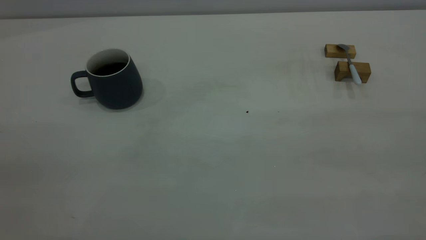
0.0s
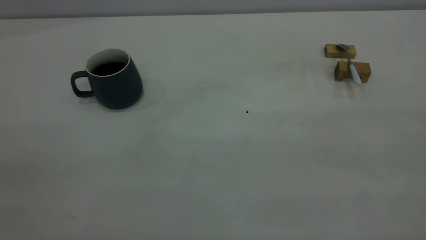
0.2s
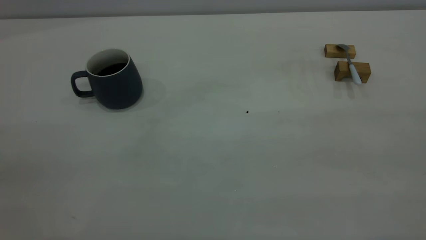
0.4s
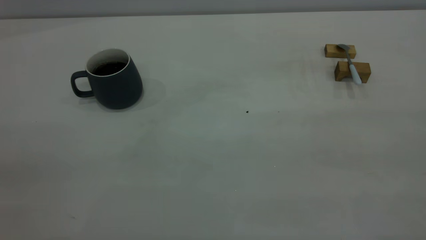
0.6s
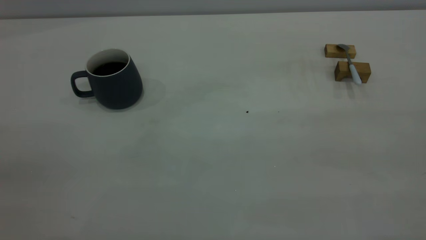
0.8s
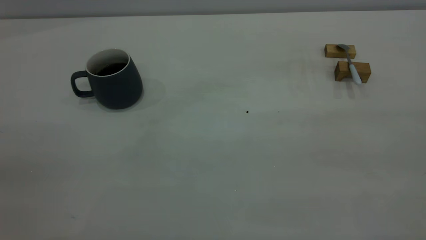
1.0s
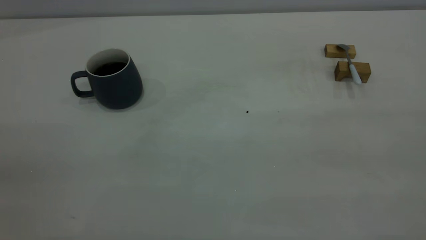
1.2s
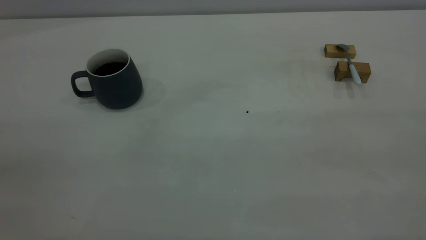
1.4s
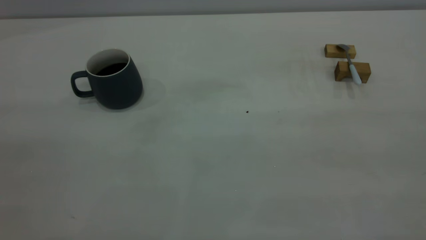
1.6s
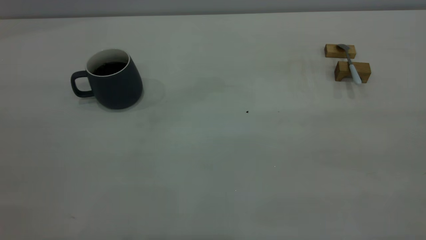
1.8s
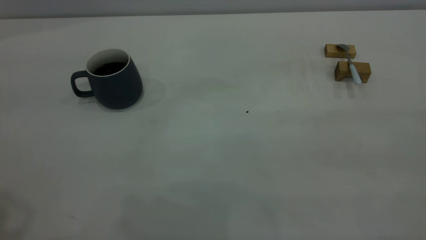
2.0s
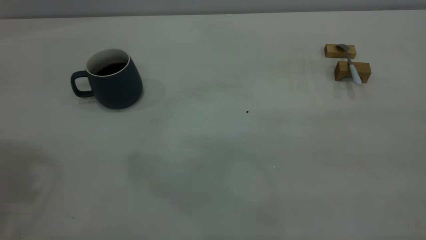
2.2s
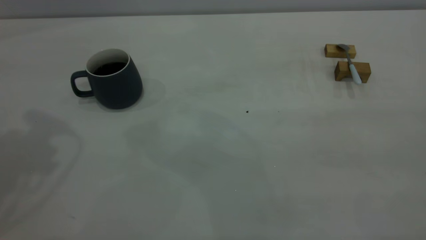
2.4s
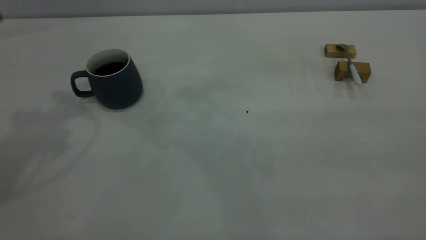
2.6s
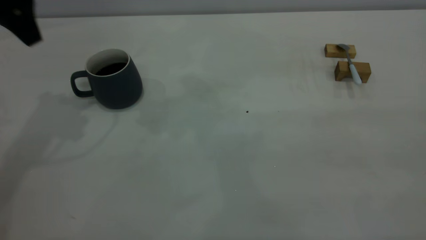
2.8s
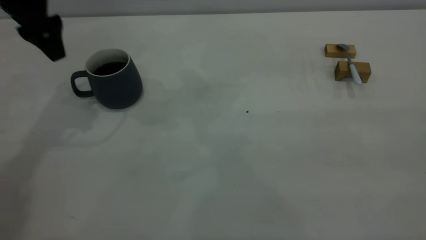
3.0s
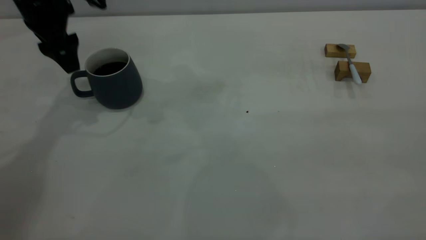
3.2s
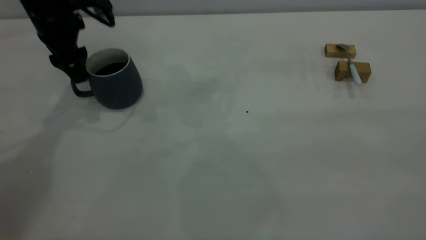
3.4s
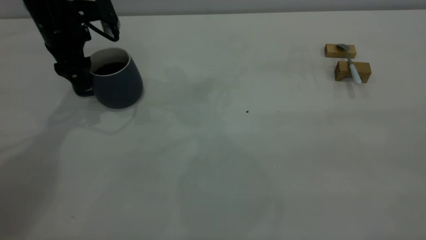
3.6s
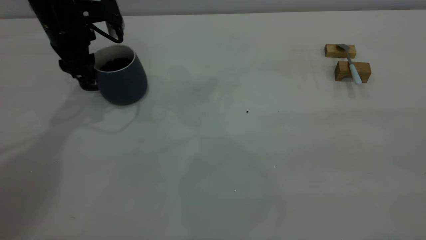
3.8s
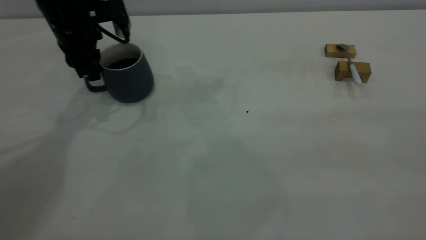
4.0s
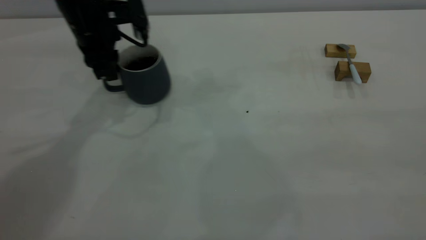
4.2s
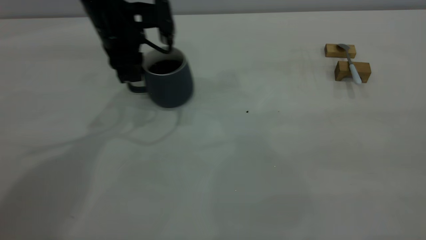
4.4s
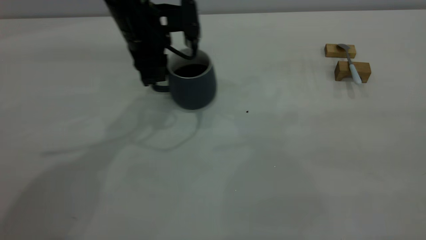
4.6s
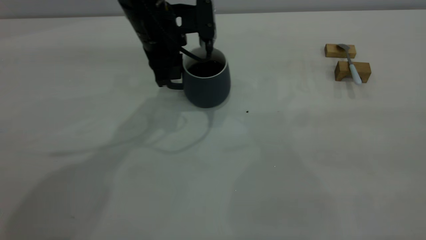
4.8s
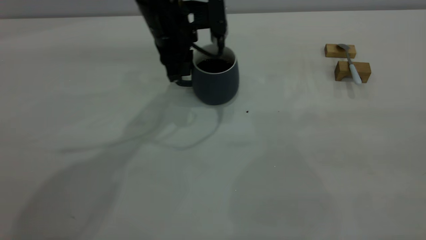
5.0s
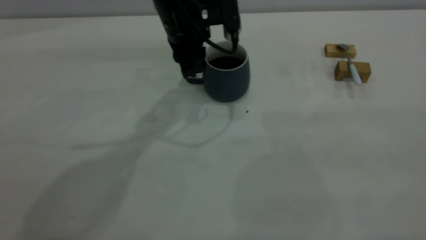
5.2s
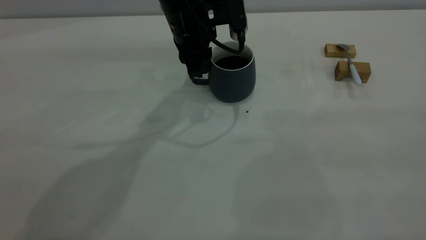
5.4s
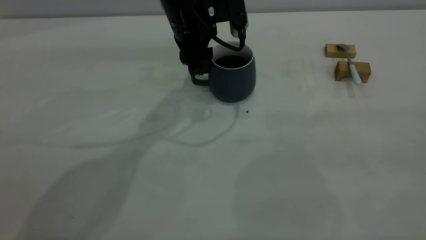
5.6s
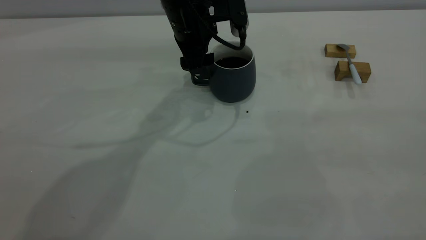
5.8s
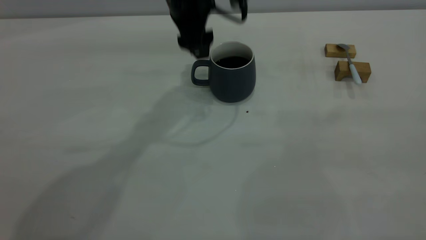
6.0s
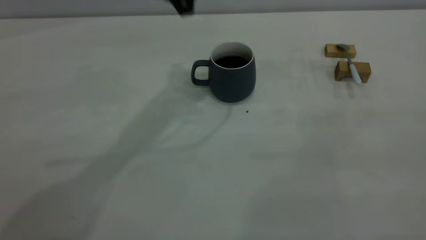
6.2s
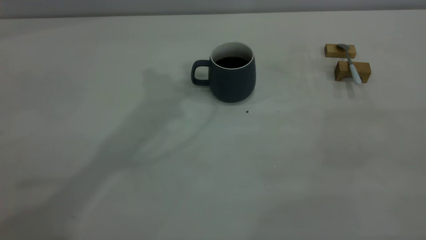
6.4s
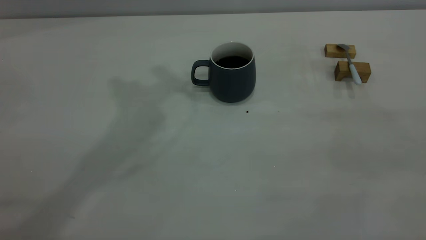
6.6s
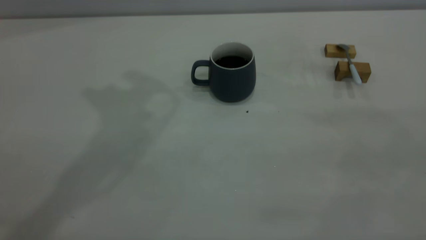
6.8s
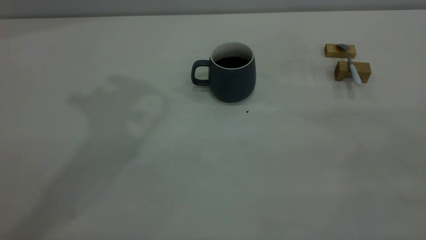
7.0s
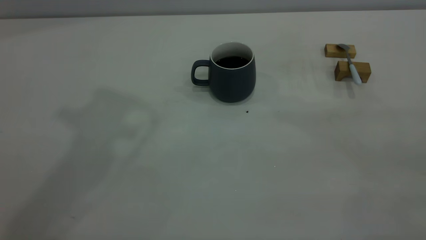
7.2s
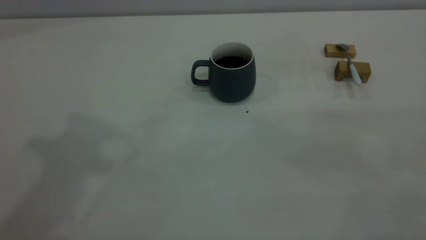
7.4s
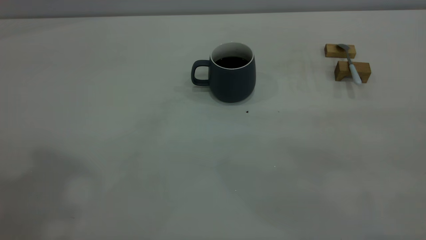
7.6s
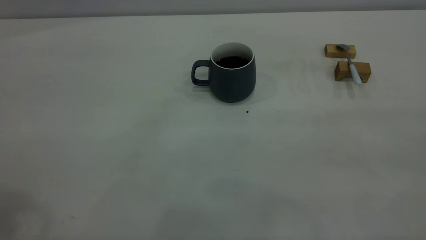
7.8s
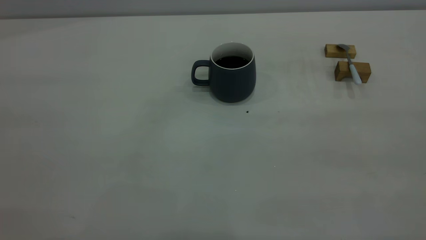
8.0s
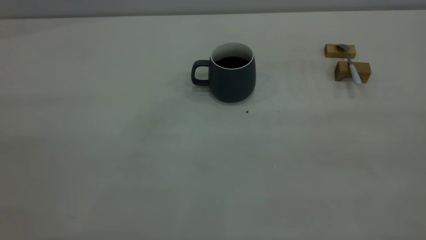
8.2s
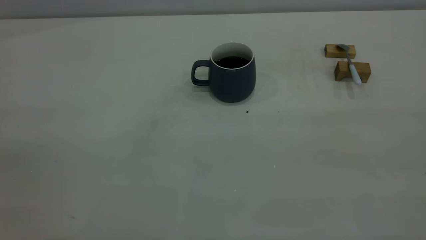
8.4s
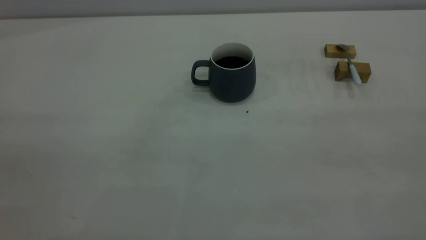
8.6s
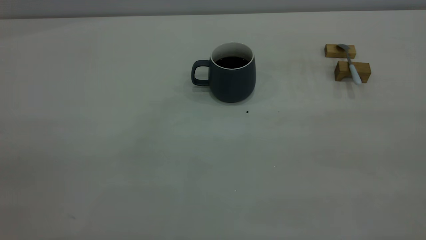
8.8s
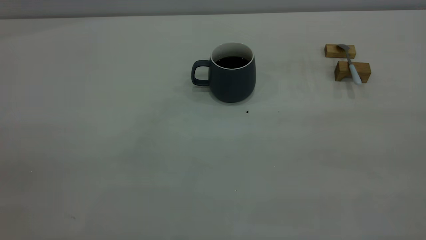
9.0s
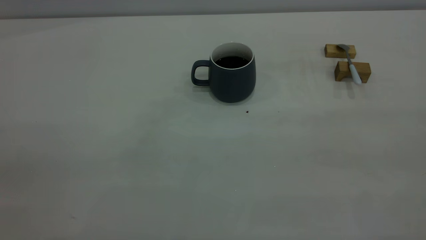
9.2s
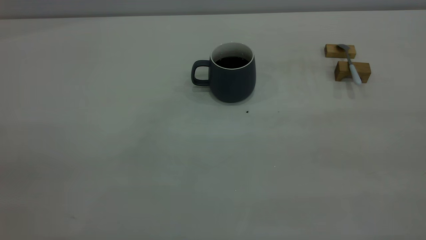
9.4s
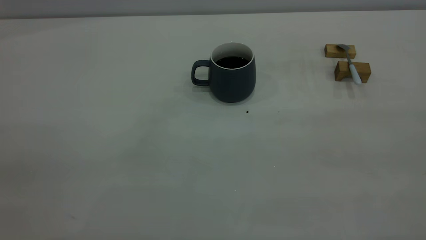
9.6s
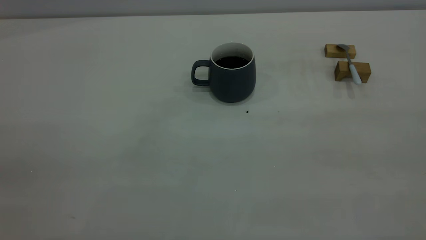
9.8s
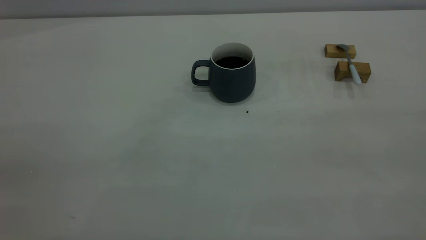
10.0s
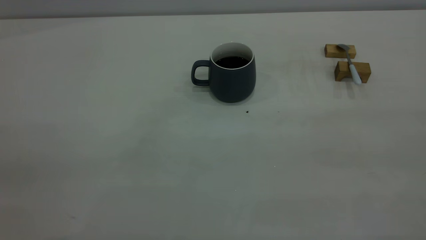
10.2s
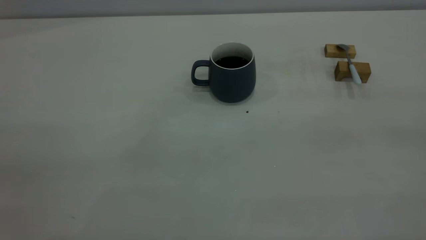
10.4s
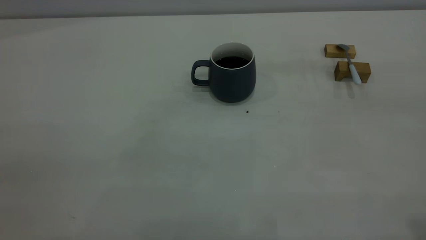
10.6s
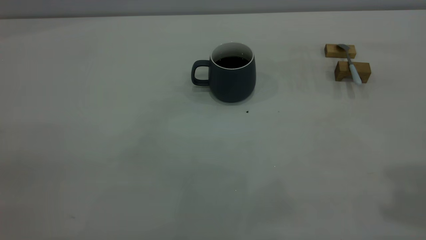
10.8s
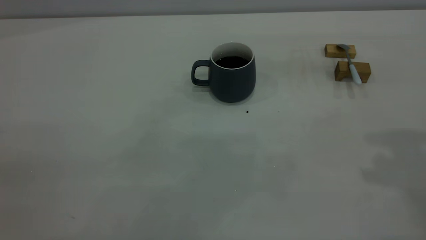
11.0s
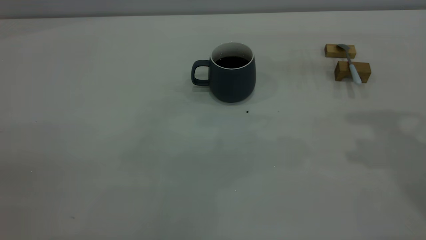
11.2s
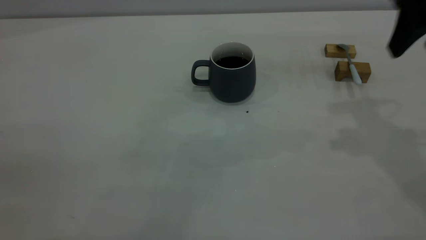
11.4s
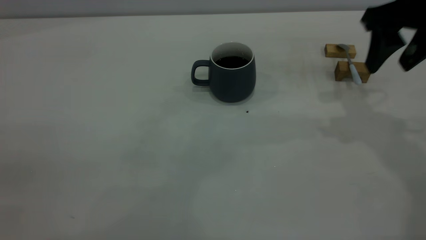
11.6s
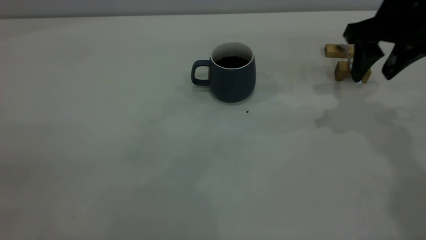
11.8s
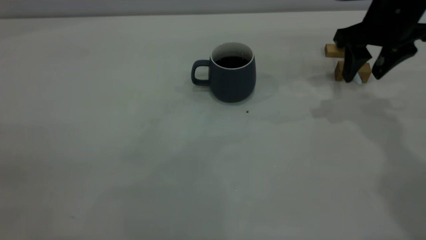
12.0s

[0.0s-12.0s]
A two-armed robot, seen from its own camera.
Step, 0.0s to 6.0s: Move the cup with coffee to the center of view.
1.6s to 3.0s: The left gripper goes approximately 40 cm forward and downward, and opens.
3.0s to 4.4s: The left gripper travels to the right and downward by approximately 15 cm, and closes its fingers.
4.4s to 6.0s: The left gripper shifts some 10 cm to the right and upward, and opens.
6.0s to 7.6s: The left gripper travels upward, backward and to the left by roughly 40 cm, and closes its fingers.
10.4s to 12.0s: The right gripper travels forward and downward by roughly 40 cm, and opens its fingers.

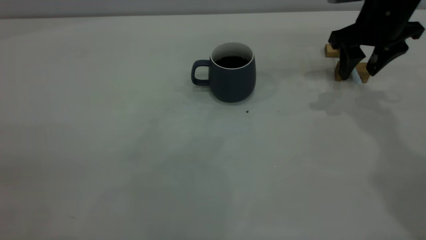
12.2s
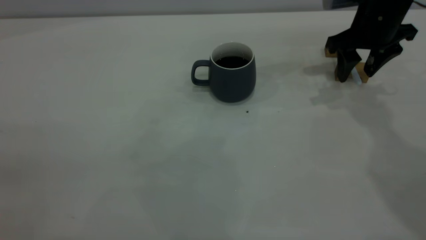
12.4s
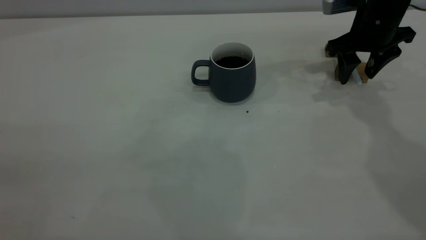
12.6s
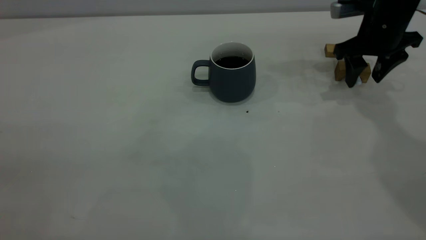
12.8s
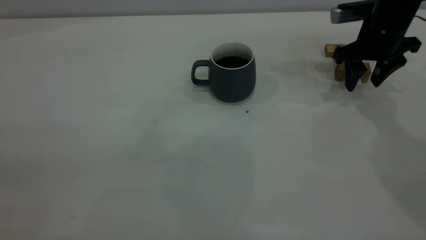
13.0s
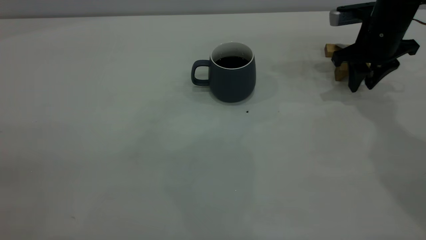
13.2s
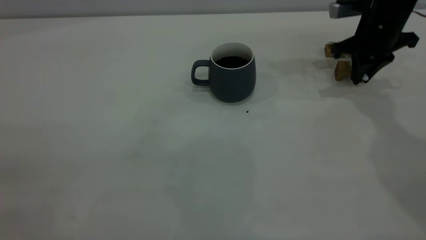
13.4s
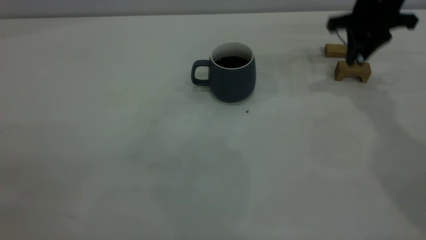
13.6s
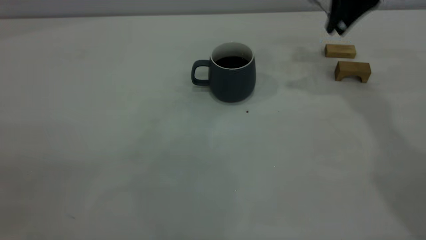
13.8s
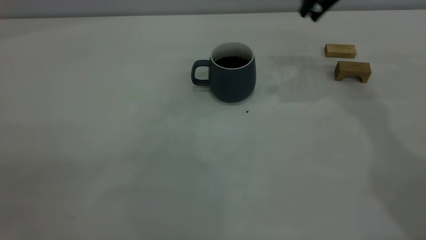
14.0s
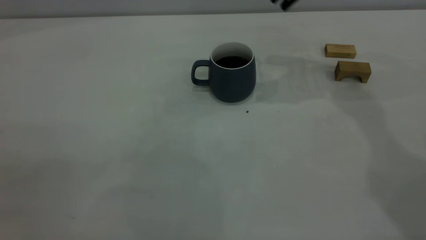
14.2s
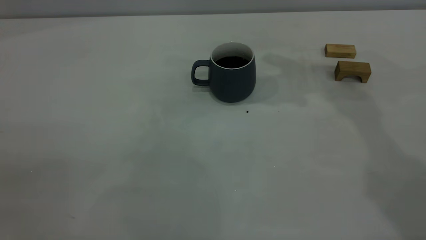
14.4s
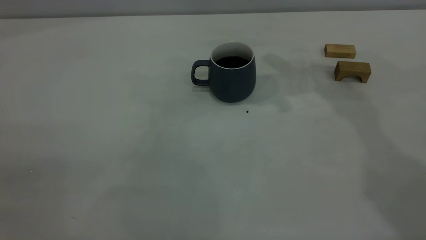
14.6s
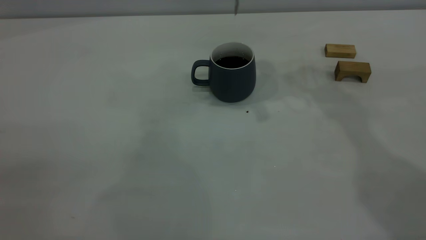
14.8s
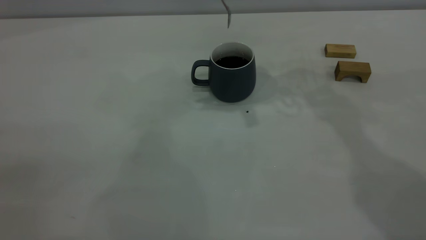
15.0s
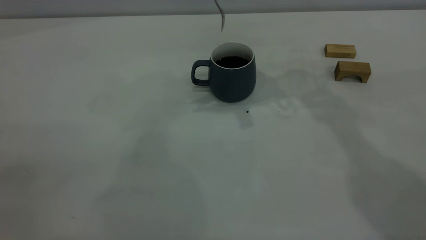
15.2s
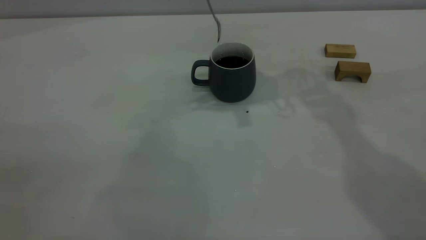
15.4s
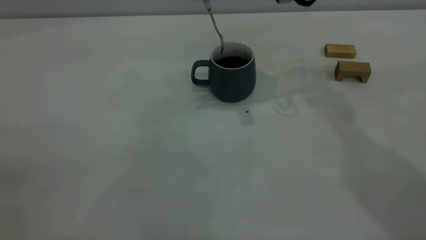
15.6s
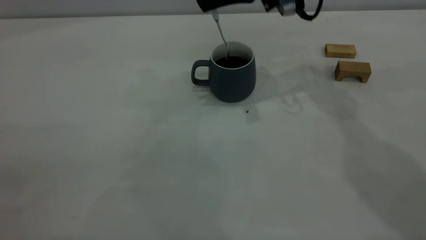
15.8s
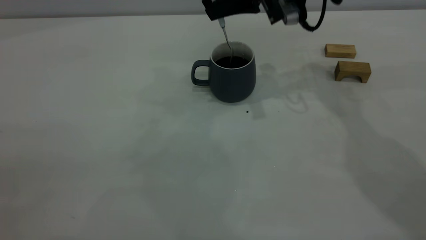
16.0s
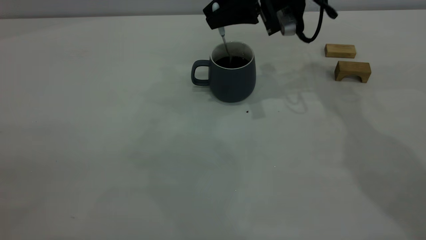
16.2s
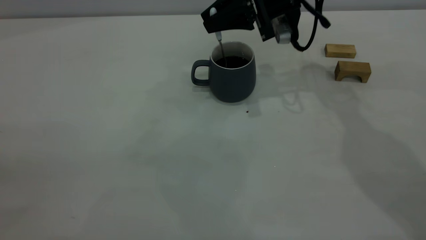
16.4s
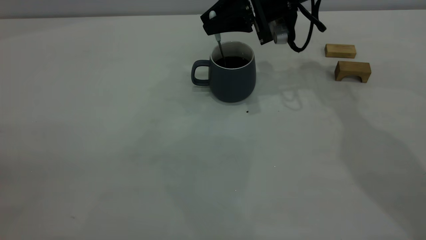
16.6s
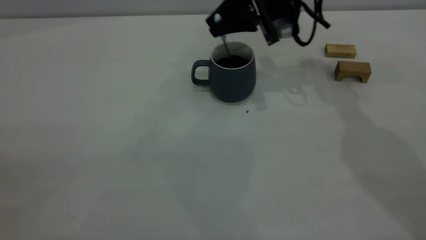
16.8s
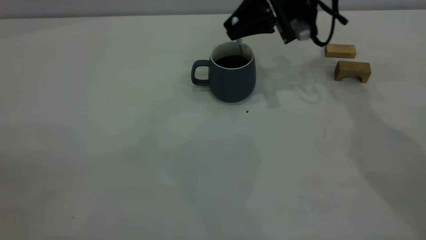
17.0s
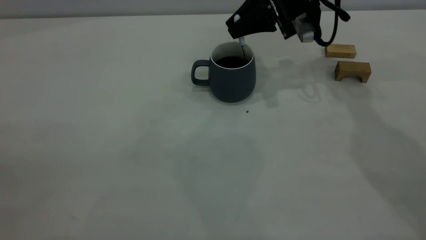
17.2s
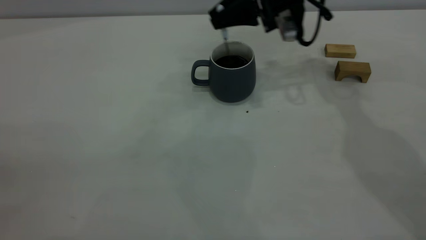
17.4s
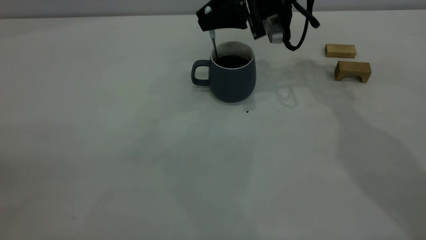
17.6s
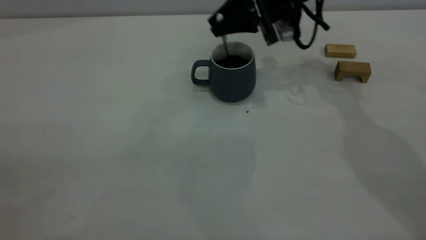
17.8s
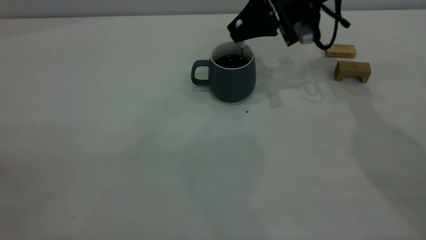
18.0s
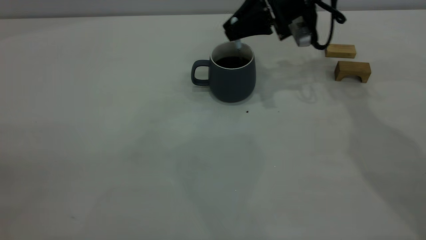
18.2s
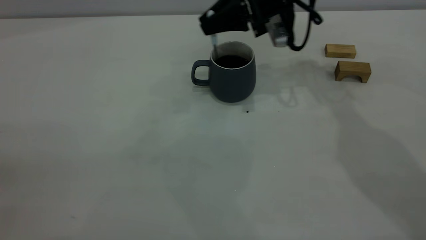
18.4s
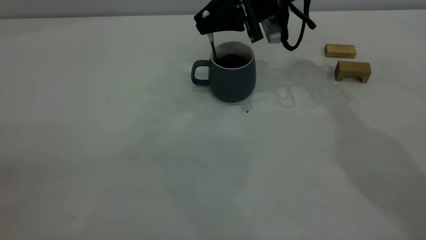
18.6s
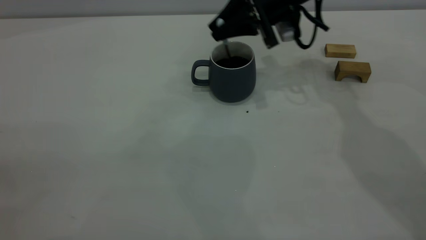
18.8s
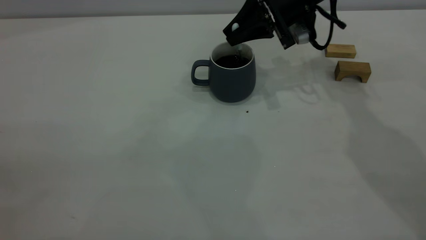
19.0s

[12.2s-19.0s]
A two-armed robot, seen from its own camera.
12.2s to 13.6s: The right gripper closes.
13.6s to 15.0s: The right gripper is displaced to the left and upward by roughly 20 cm.
15.0s to 16.2s: The right gripper shifts some 10 cm downward.
16.2s to 17.6s: The grippers stay close to where they were, moving slightly.
17.6s to 19.0s: The right gripper goes left and right, some 5 cm each way, reversing 2 times.
